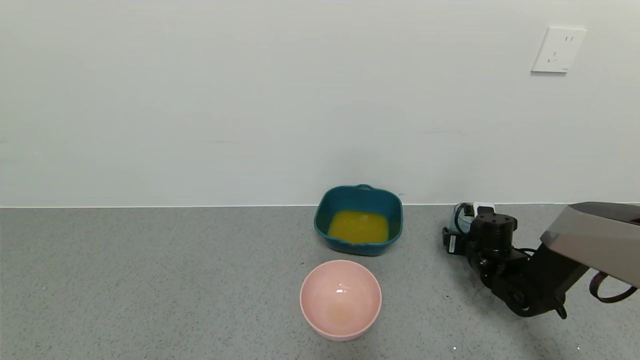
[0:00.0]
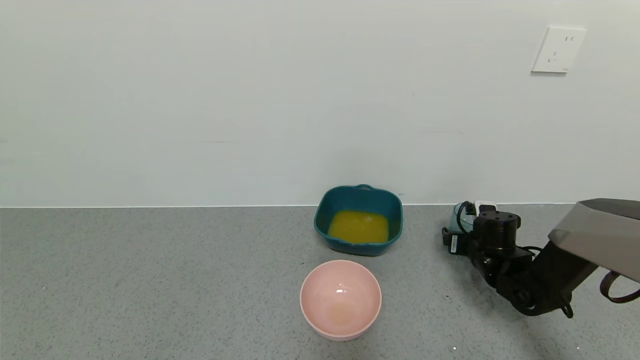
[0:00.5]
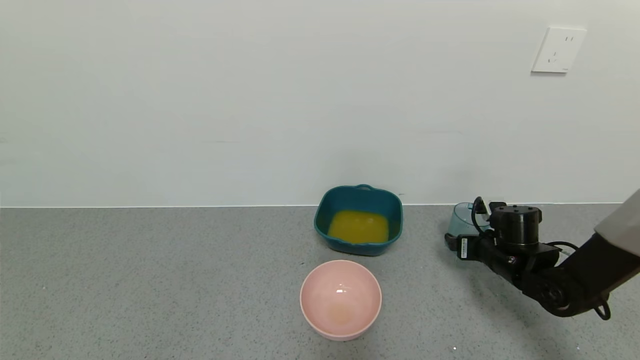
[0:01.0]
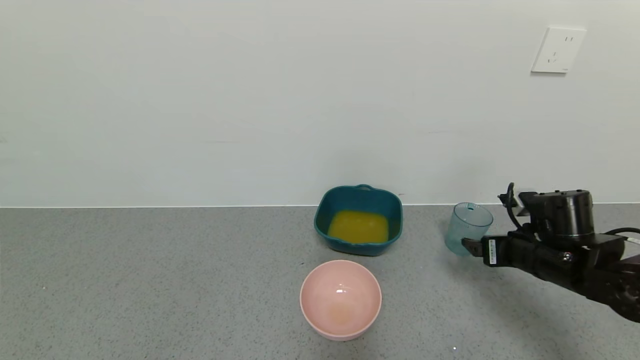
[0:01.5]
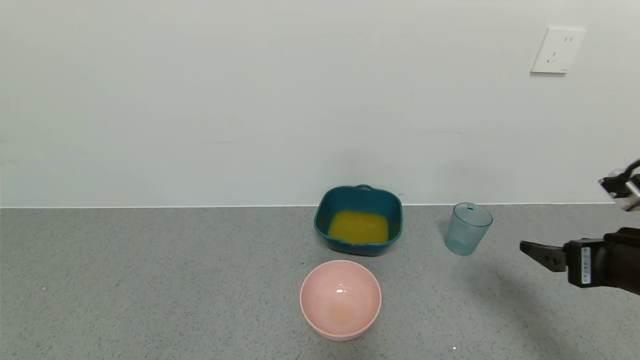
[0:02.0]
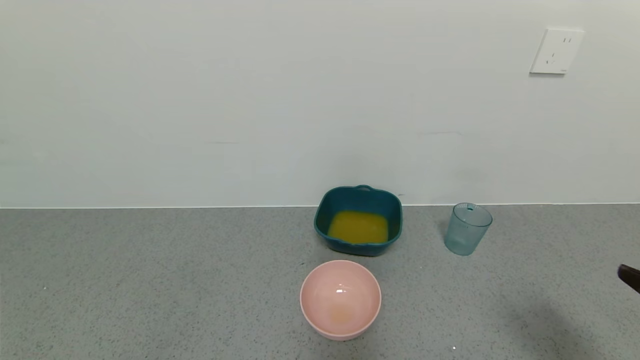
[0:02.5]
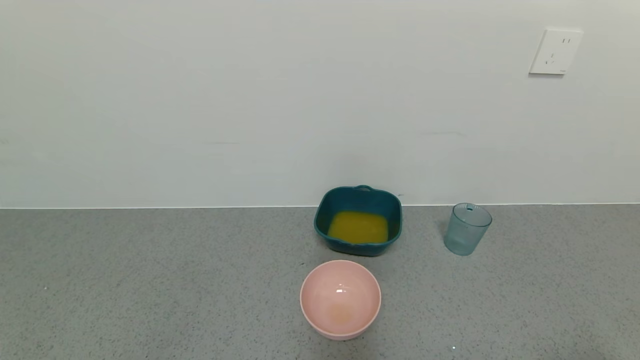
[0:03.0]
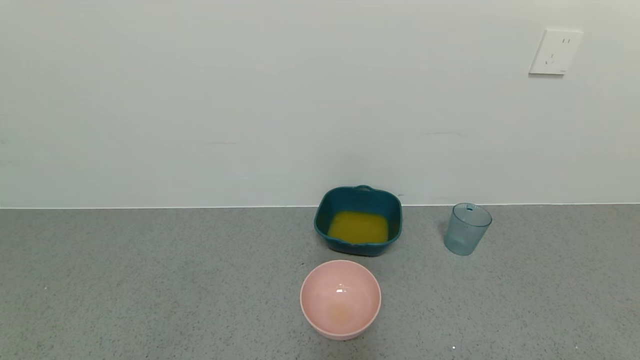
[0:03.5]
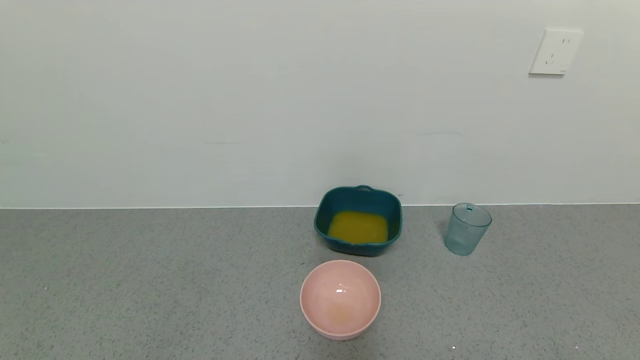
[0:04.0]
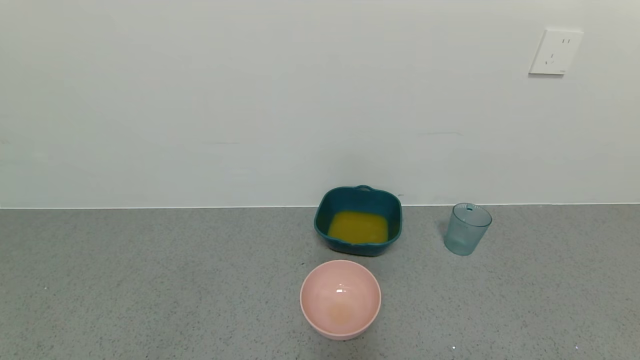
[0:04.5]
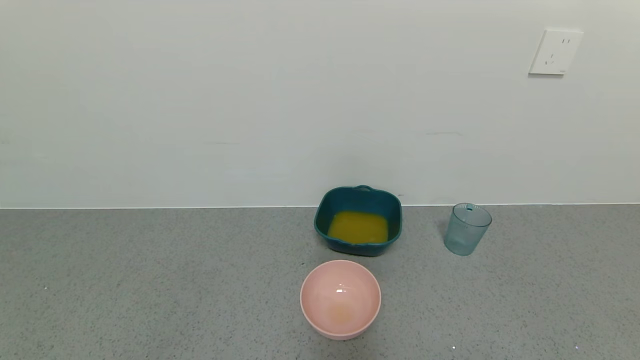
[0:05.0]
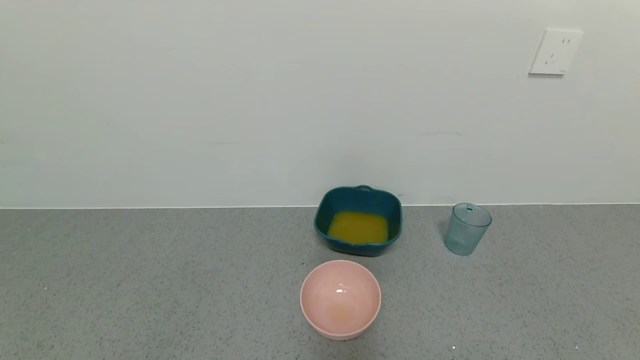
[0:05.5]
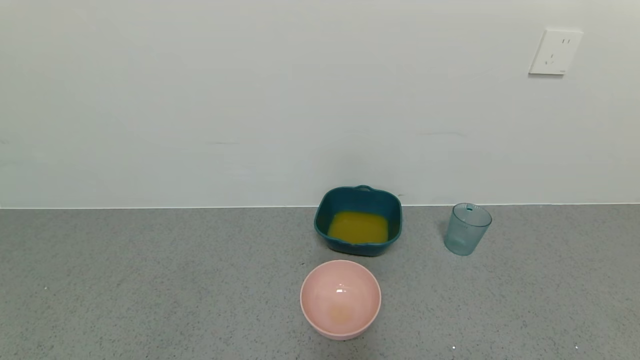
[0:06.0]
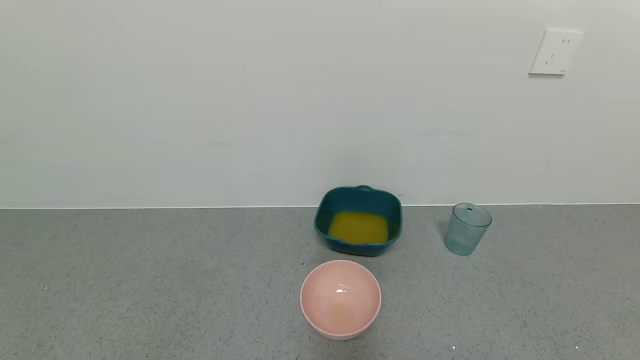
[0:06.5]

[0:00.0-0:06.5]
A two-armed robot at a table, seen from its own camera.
Task of the whole recording: use a gripper to pick up the cup and pour the liquid into a bowl or tray.
0:00.0 to 0:02.0: The right gripper heads backward and upward, covering about 30 cm, and opens its fingers.
0:02.0 to 0:04.5: The right gripper travels backward by some 25 cm.
